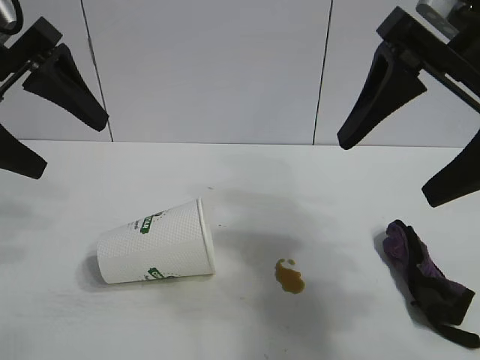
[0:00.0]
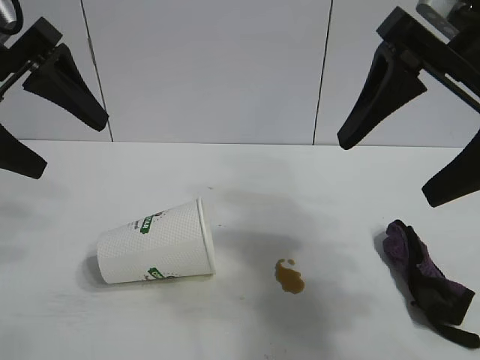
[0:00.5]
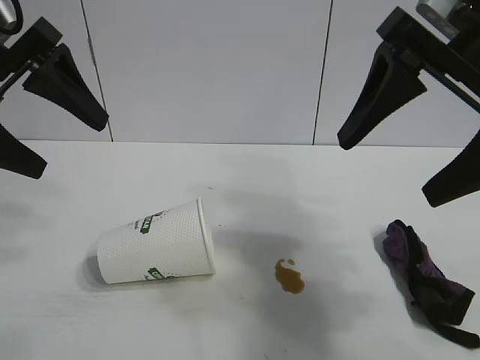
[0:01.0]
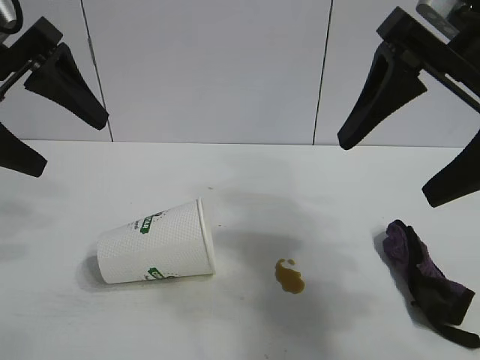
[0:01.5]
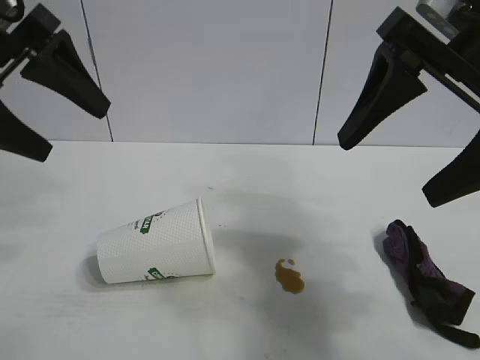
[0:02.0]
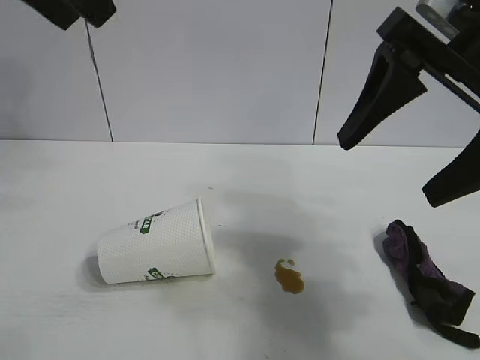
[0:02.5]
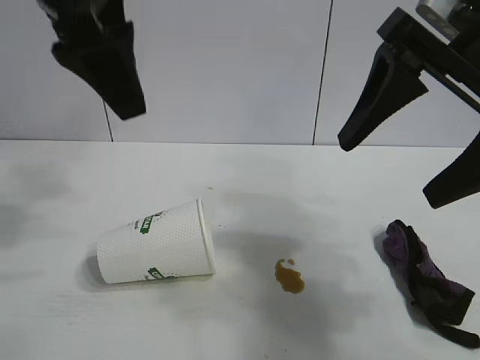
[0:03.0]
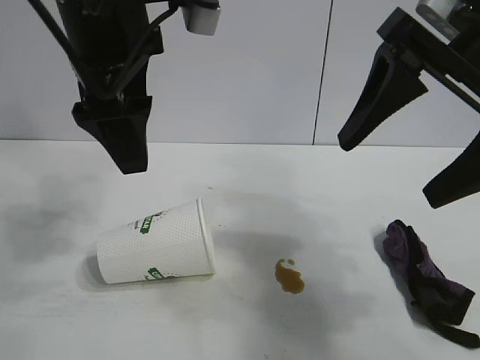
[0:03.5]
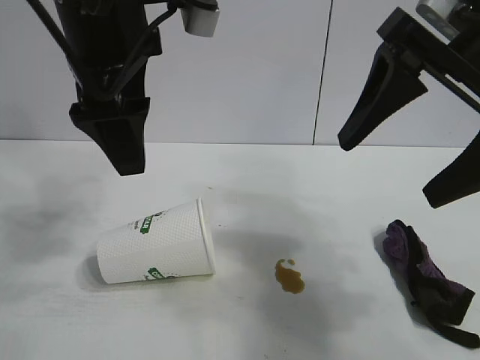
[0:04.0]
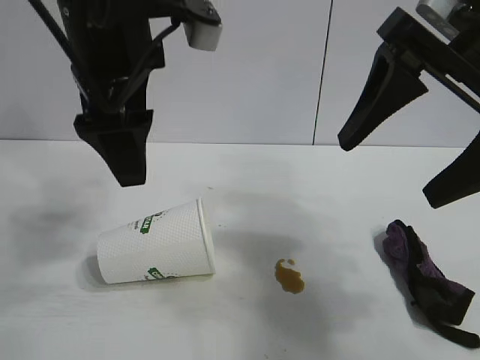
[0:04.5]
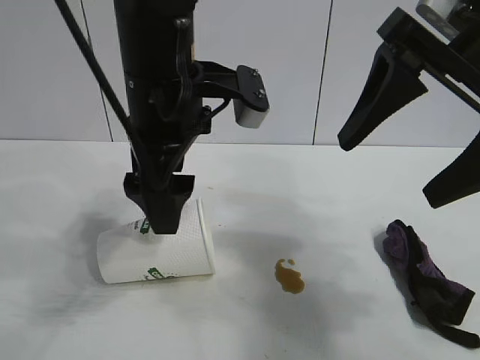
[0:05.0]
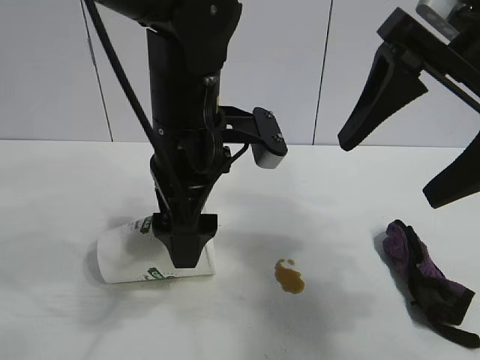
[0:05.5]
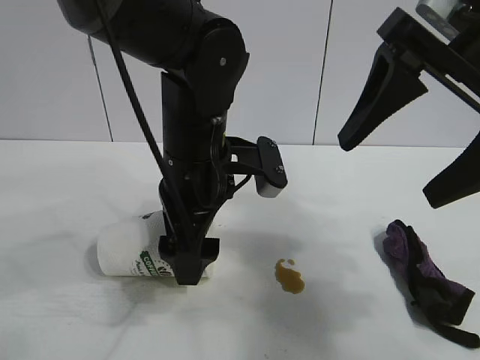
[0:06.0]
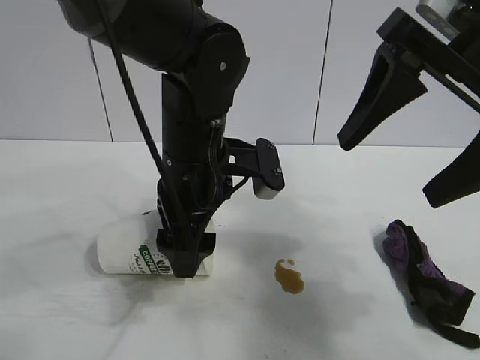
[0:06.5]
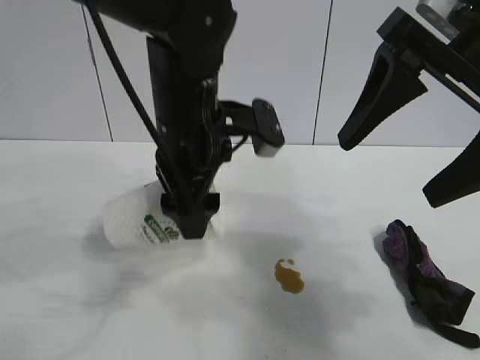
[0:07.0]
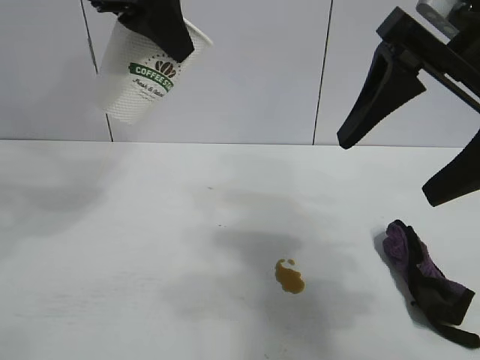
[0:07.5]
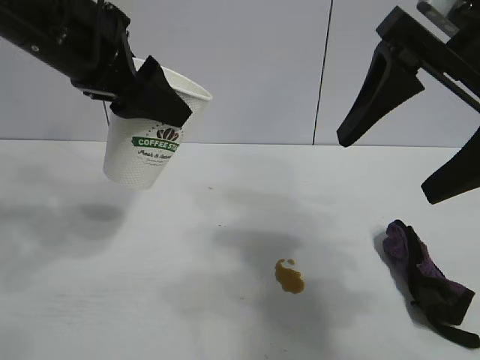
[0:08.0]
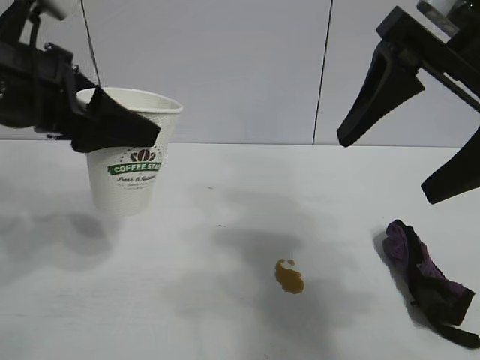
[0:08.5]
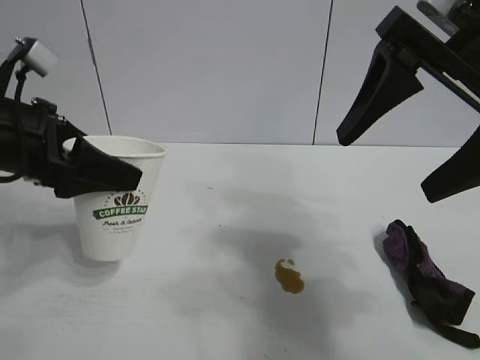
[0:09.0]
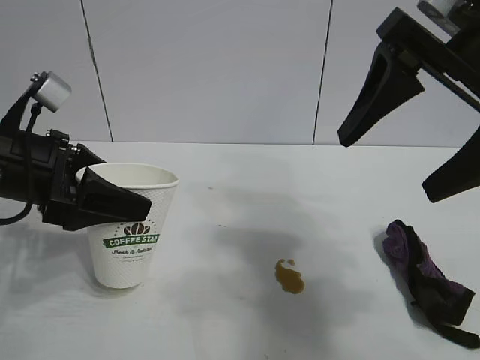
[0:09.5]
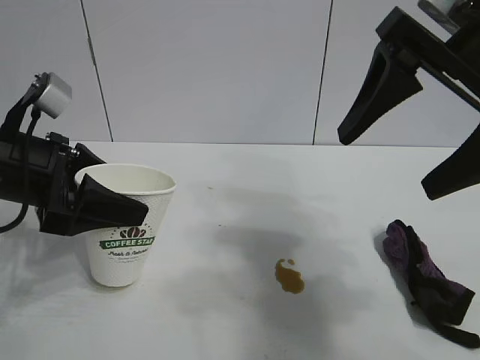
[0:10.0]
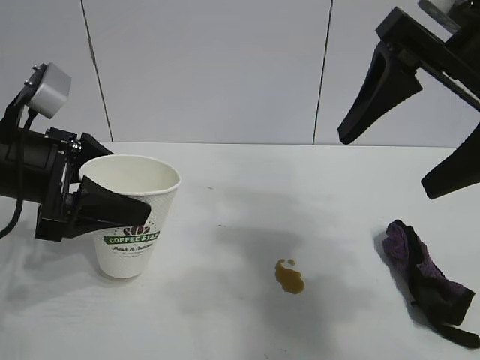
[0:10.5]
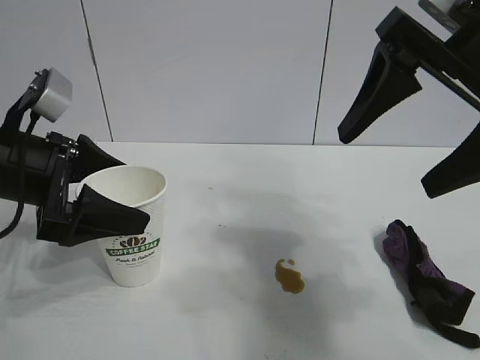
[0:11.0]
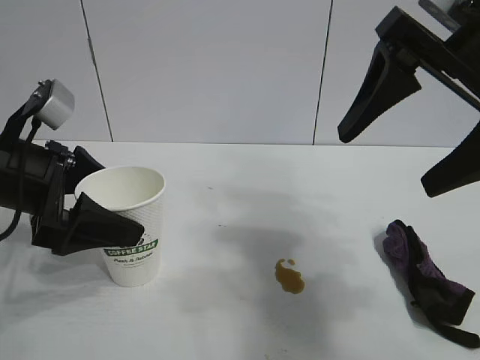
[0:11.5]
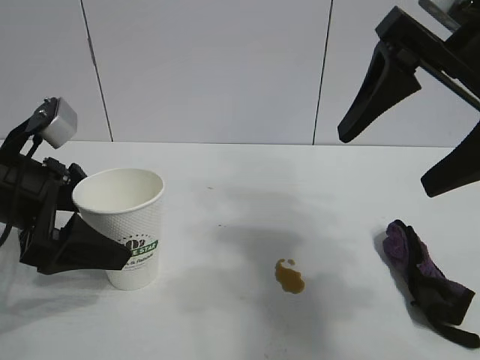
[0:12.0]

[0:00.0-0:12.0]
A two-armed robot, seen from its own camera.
Task of the whole recording: the left gripper pick up the fallen cup and place it upright, the right gripper grasp the black rag and wipe the stain on the table, the right gripper put the black rag back in its original position.
Step, 0:02.0 to 0:06.5: Grasp the paper cup with left gripper.
Step, 0:07.0 to 0:10.5: Stand the paper cup upright with left gripper.

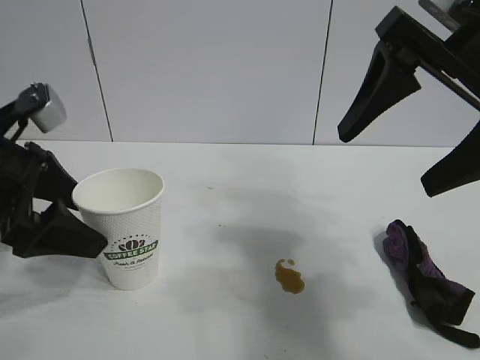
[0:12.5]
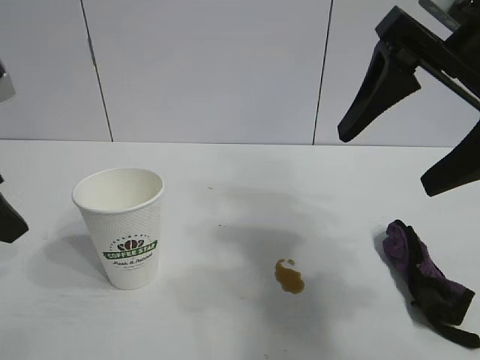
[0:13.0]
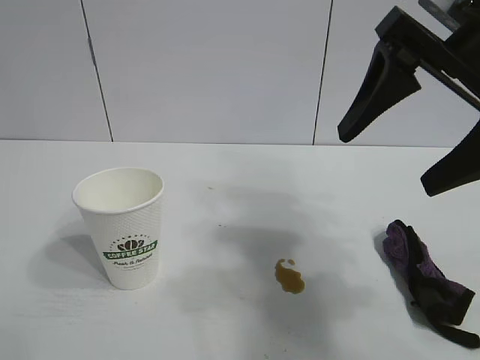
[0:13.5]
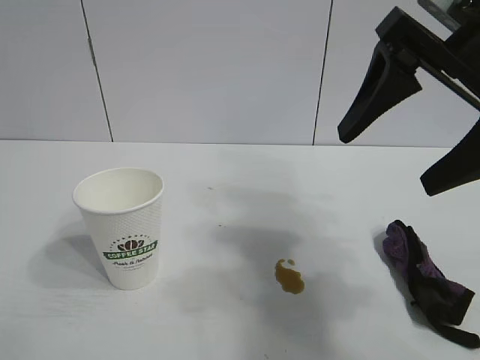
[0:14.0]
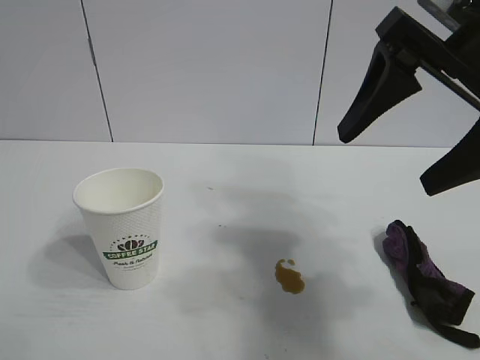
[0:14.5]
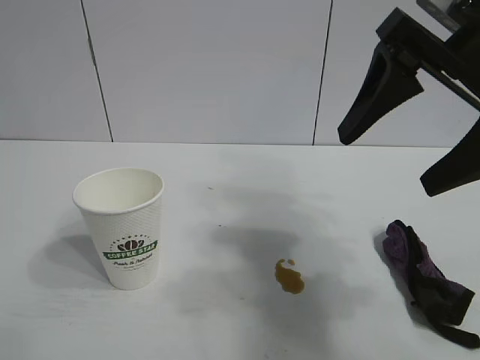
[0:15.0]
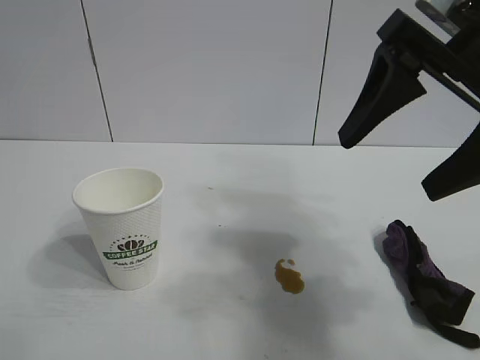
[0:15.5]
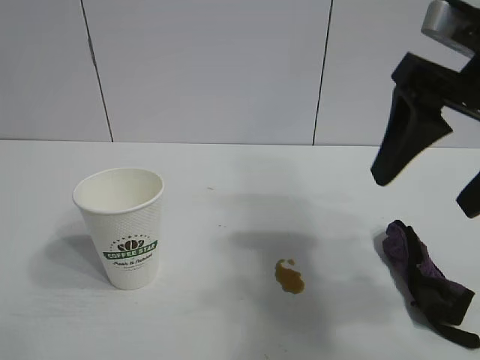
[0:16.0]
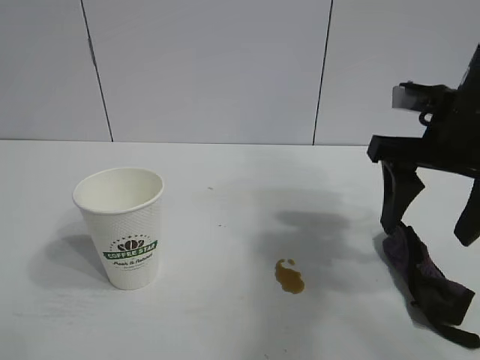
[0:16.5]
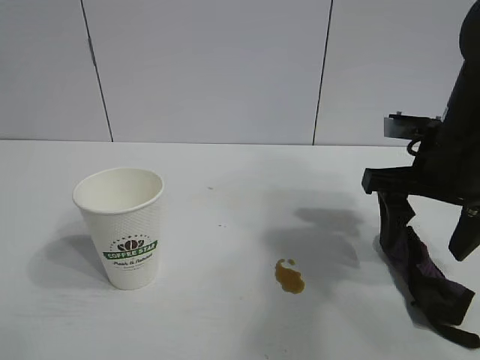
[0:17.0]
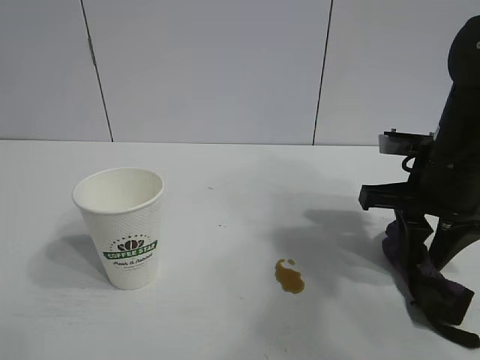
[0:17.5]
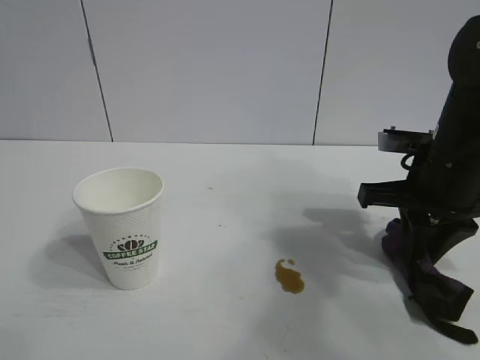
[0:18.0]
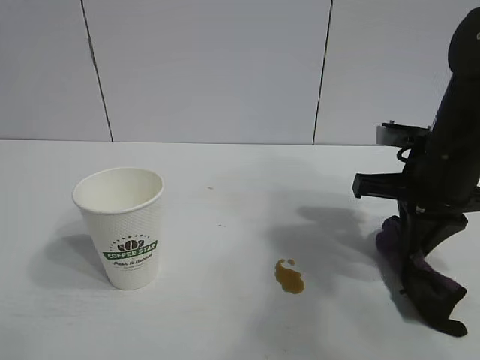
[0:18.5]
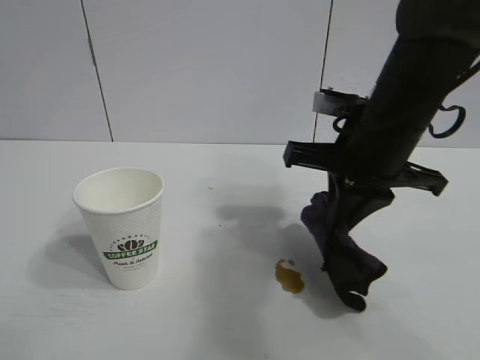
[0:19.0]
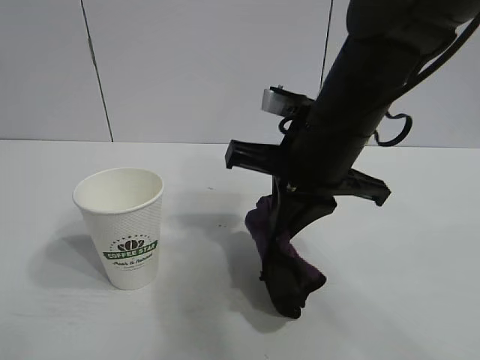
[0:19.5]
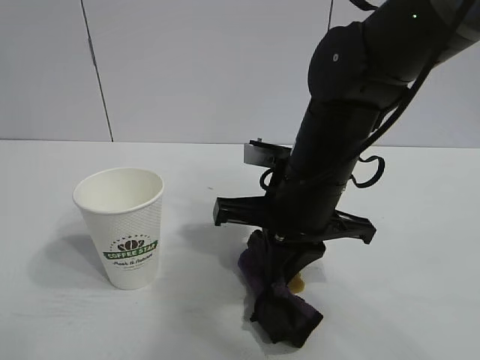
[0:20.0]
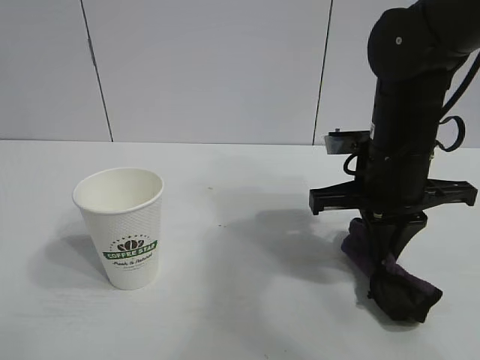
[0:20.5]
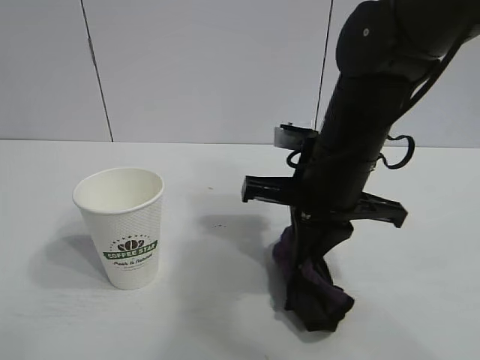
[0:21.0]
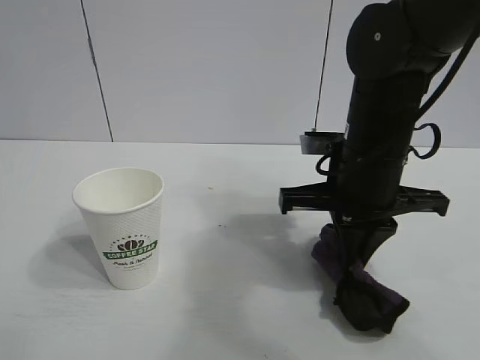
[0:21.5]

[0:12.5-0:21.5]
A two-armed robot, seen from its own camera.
Task of the whole recording: the left gripper pick up the fallen cup and place it upright, the right gripper grasp the black rag and wipe the stain on the table, the right gripper put the black rag back in its original position.
Step, 0:12.5 to 0:18.0: Grasp the rag with right gripper.
